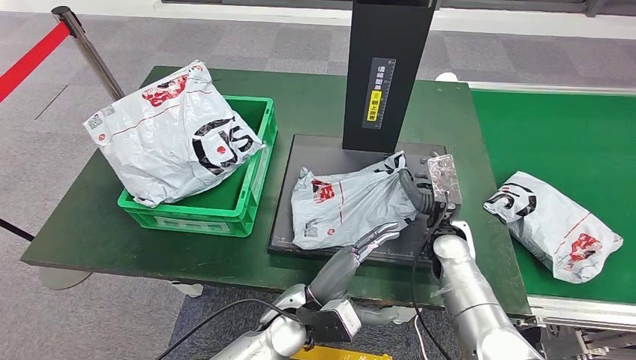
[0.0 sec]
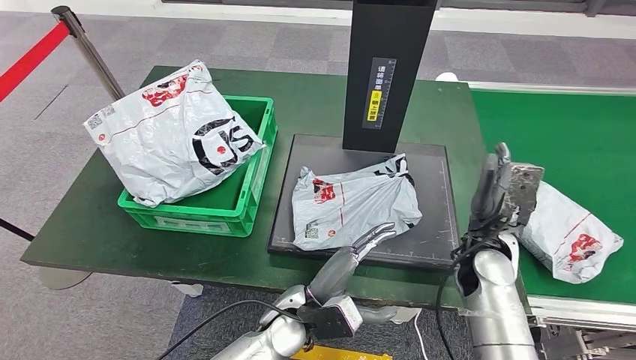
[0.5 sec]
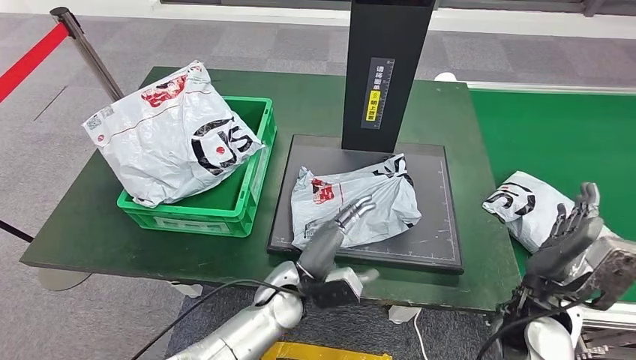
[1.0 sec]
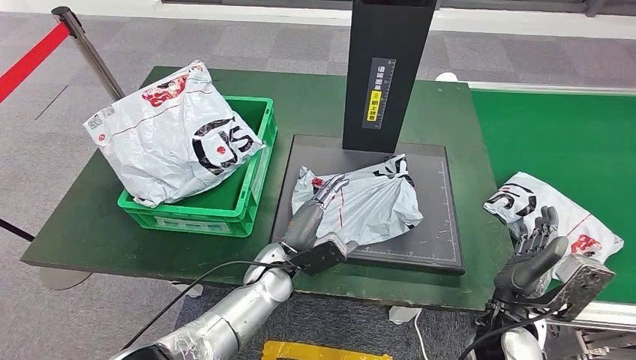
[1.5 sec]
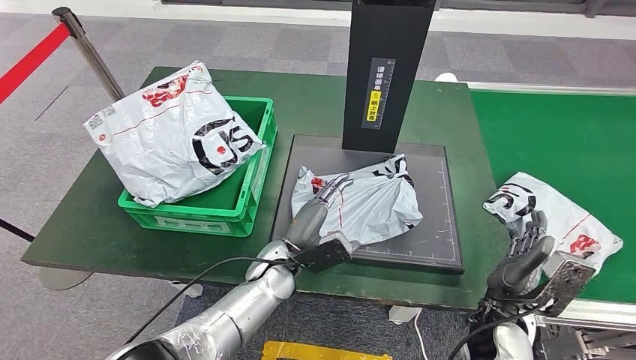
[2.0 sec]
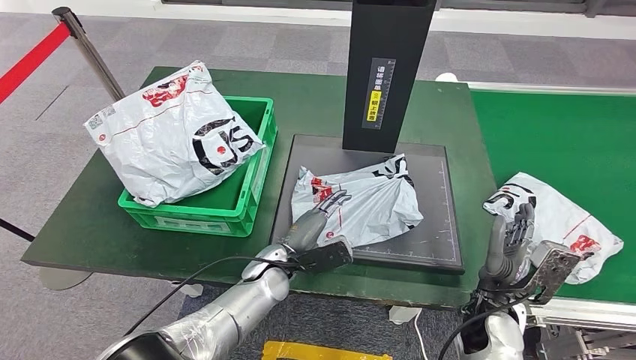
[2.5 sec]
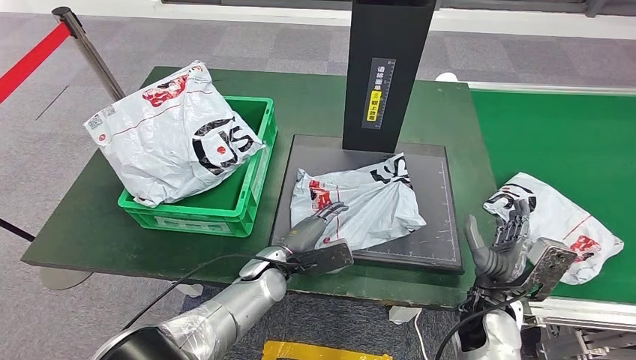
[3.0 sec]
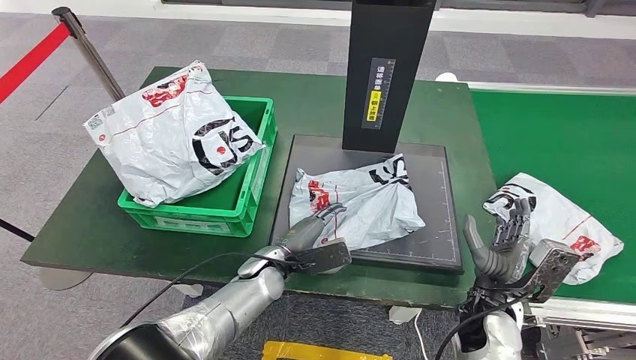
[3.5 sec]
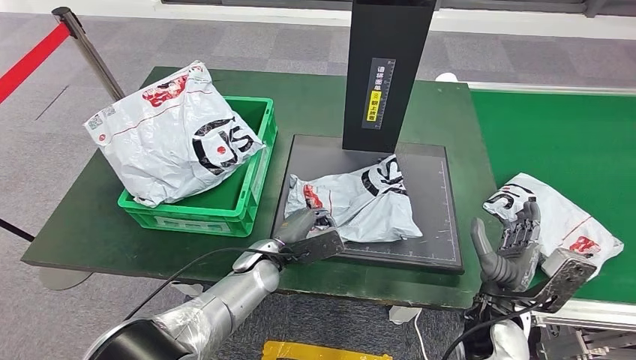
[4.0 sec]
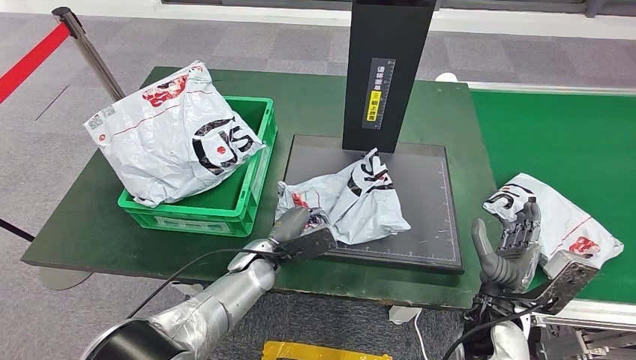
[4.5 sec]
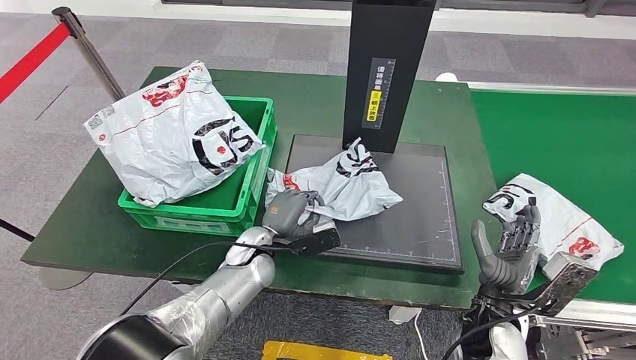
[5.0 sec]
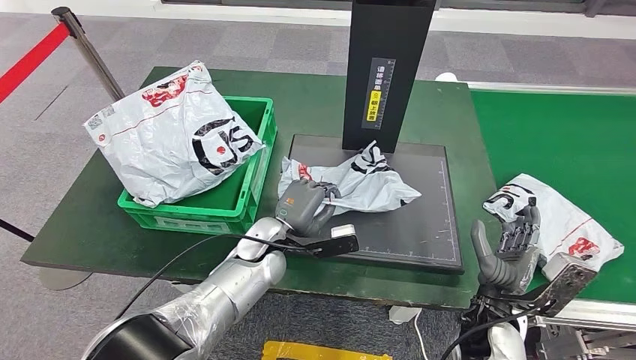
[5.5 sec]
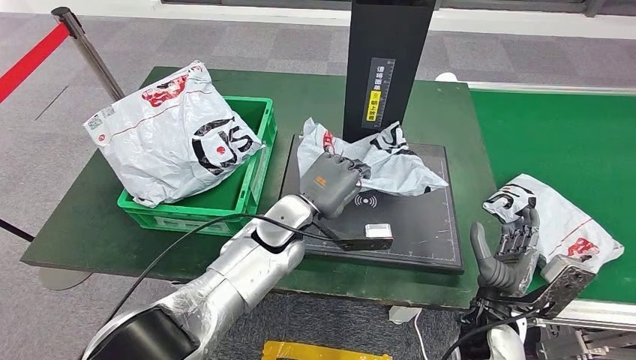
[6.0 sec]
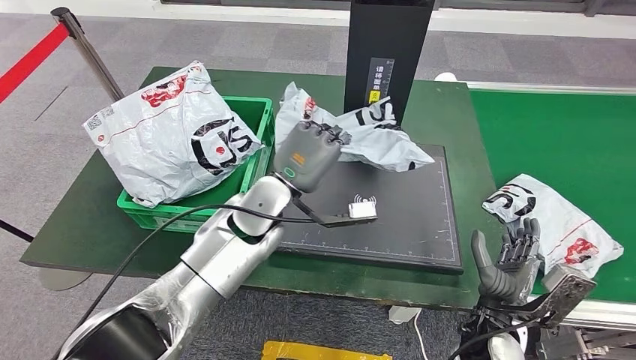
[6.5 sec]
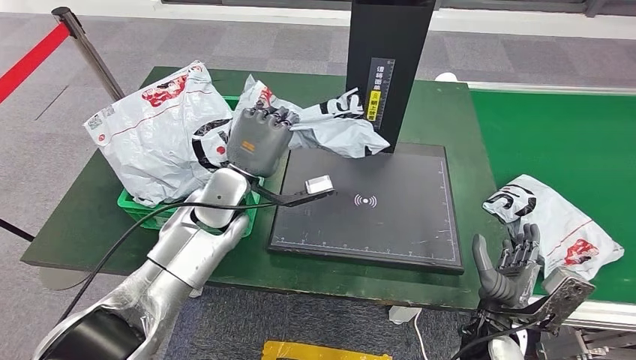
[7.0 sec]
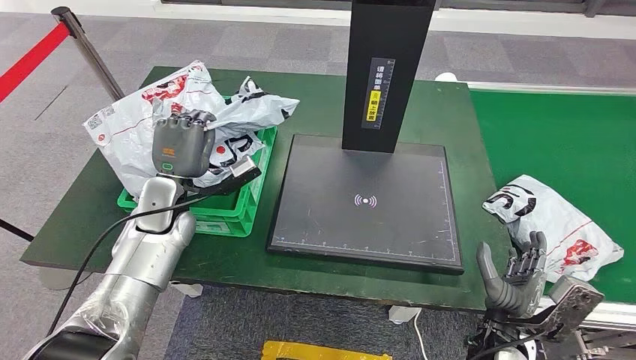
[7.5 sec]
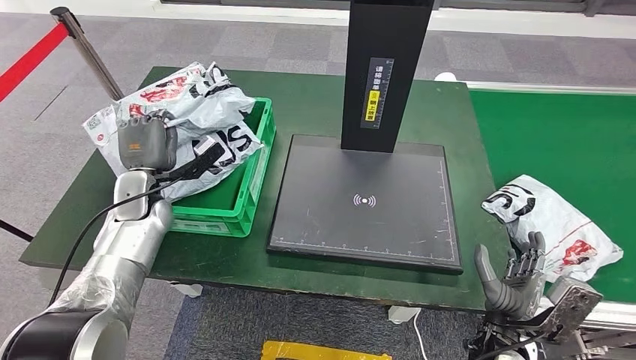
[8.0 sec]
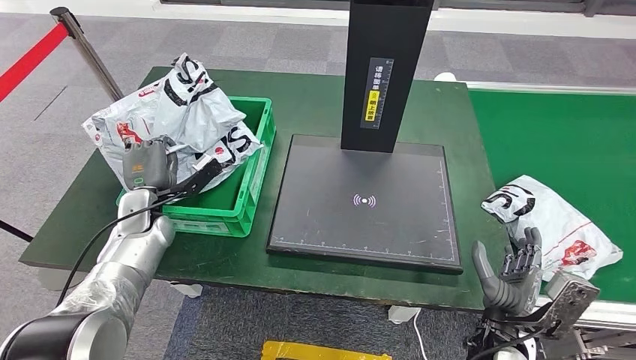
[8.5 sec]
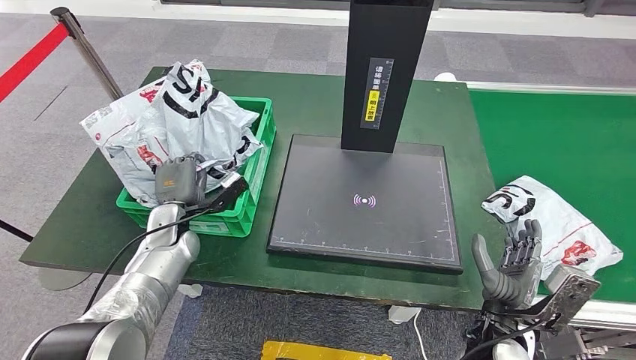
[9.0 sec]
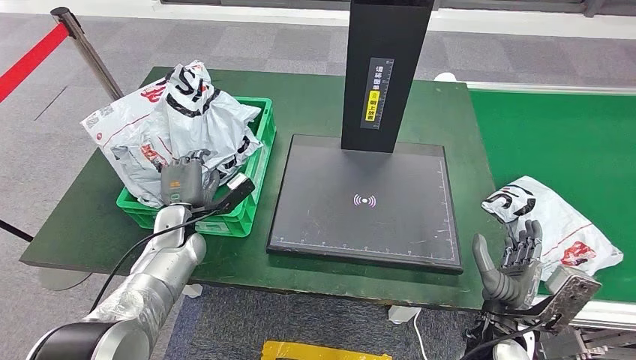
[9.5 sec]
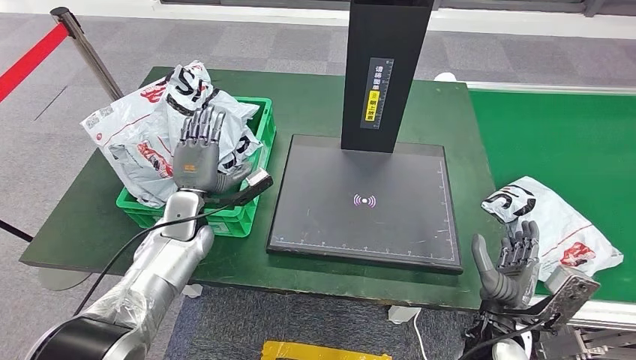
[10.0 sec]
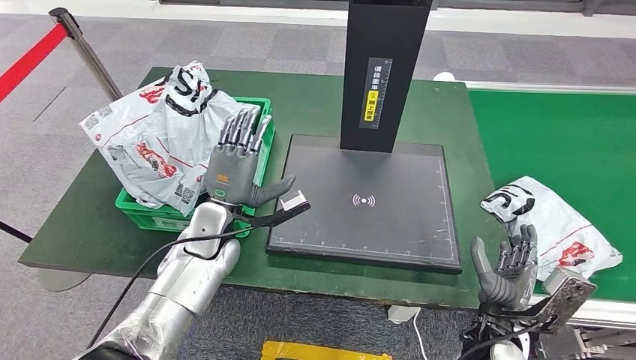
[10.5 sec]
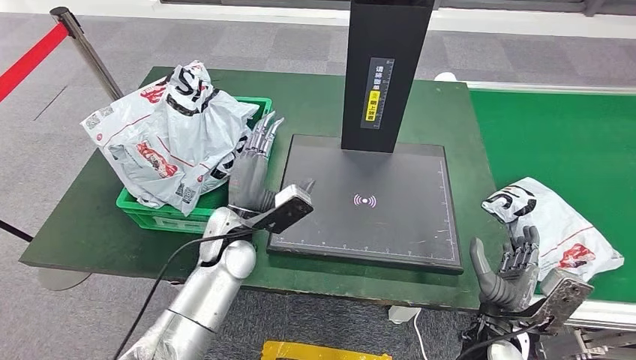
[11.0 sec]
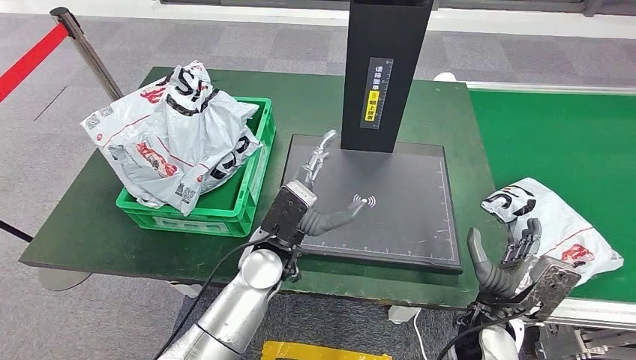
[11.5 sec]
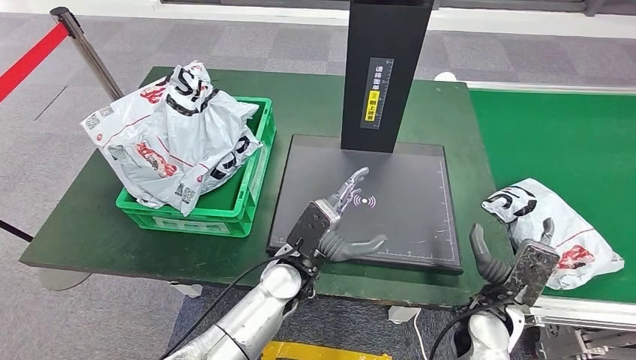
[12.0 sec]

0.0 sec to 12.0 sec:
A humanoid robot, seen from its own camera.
Step, 0.5 sec to 6.5 sec: Pick up the parcel from the inbound machine.
Step, 7.0 sec to 11.5 sec: Place the parcel into the delivery box.
0.0 sec to 2.0 sec: The right hand goes roughly 15 cm backward and to the right. Meanwhile the left hand shifts about 10 cm forward.
4.0 sec to 6.0 sec: The left hand shifts about 10 cm upward and to the right.
8.0 sec to 10.0 sec: The left hand heads to the right, covering some 10 cm.
10.0 sec to 12.0 sec: The left hand shifts about 25 cm to the right and backward.

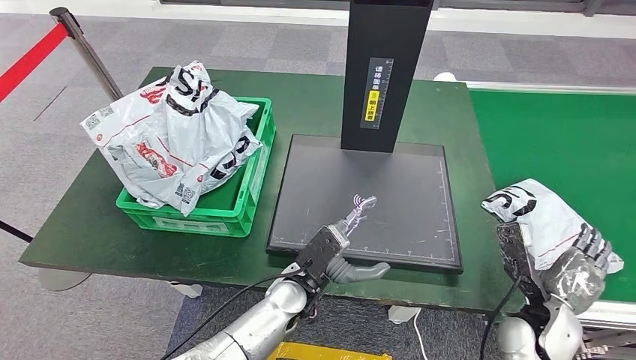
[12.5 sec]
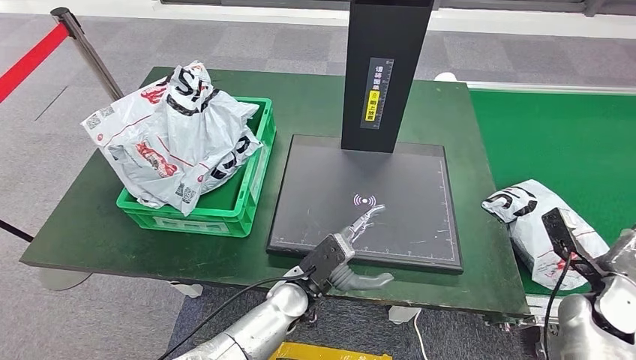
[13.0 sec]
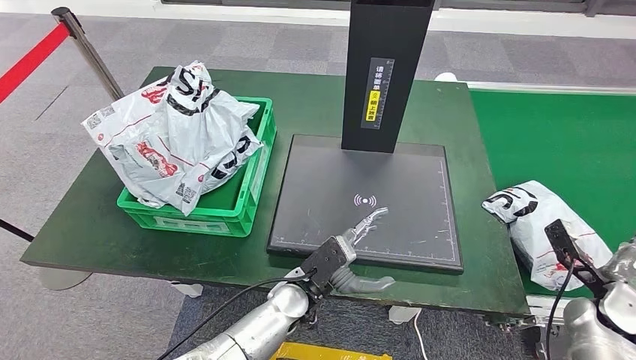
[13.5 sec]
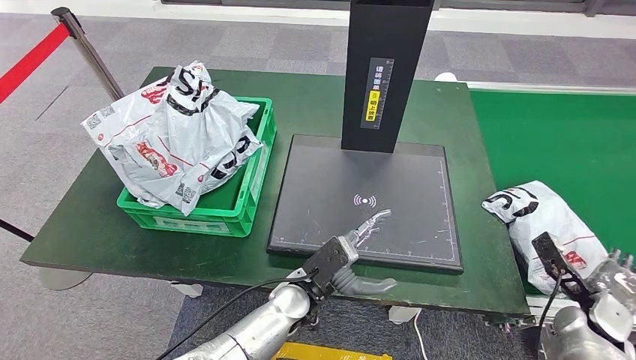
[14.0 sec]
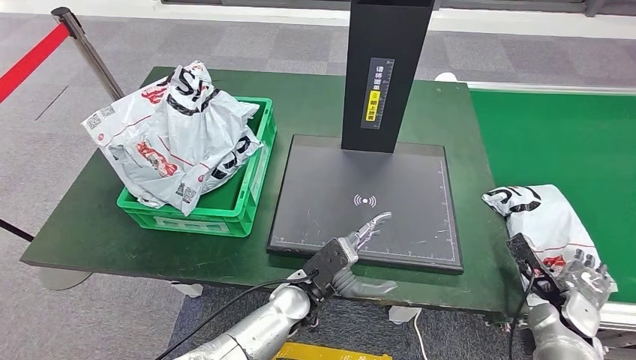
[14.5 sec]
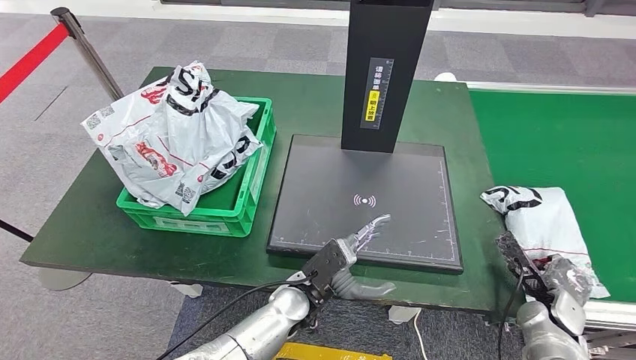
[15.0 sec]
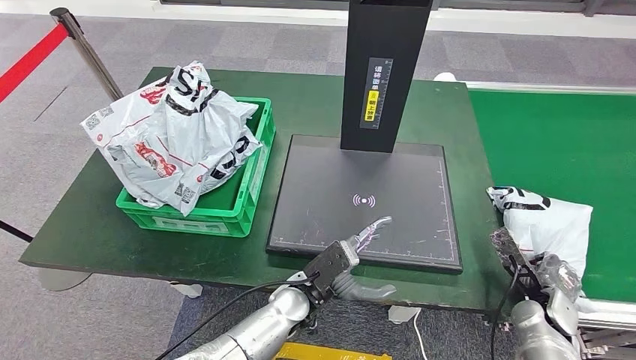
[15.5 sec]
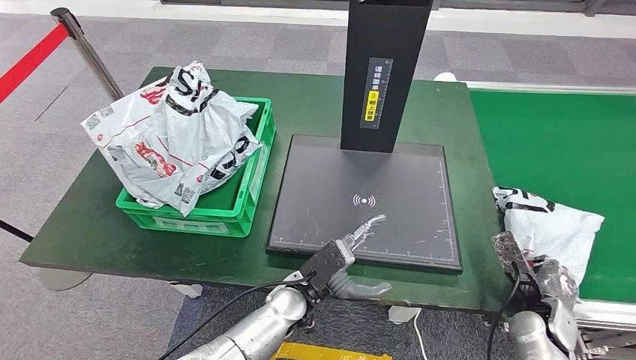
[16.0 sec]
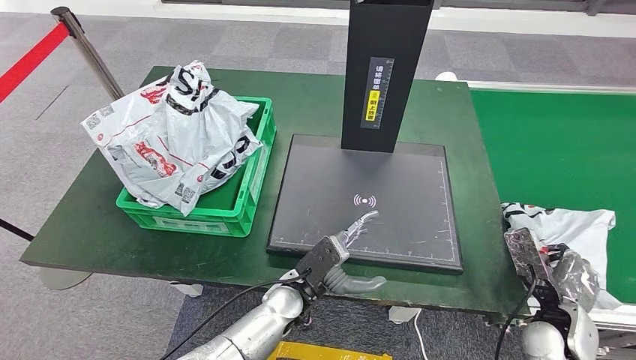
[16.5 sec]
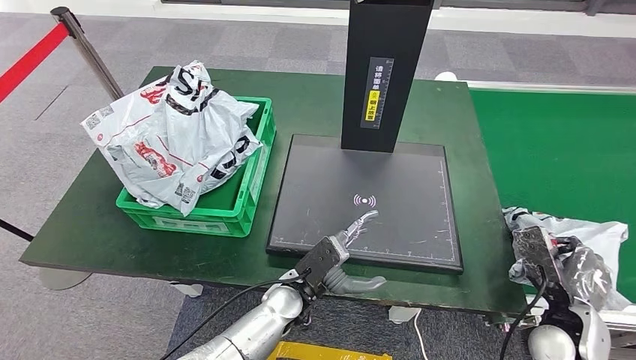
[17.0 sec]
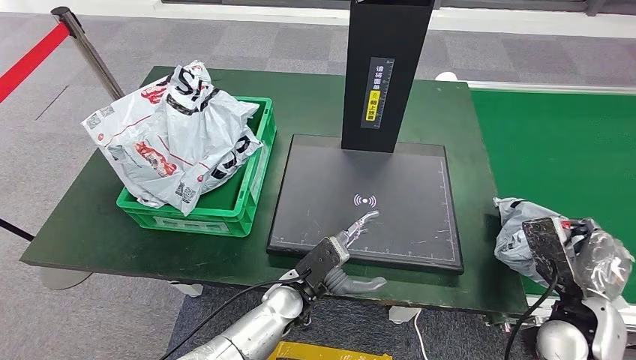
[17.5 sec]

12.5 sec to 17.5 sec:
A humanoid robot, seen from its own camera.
Step, 12.5 sec to 17.5 sec: Pick up the parcel from the conveyor belt.
12.5 sec to 15.0 sec: The right hand heads to the right and downward, covering some 10 cm.
15.0 sec to 17.5 sec: The right hand shifts approximately 10 cm upward.

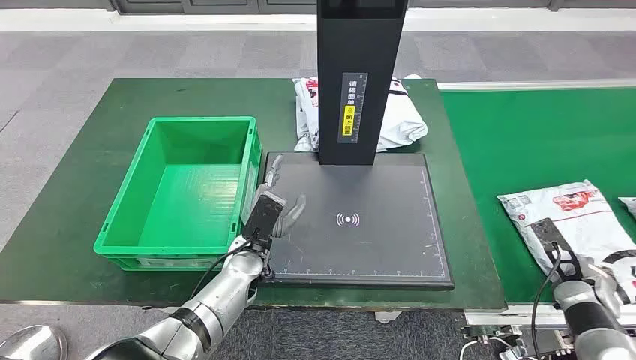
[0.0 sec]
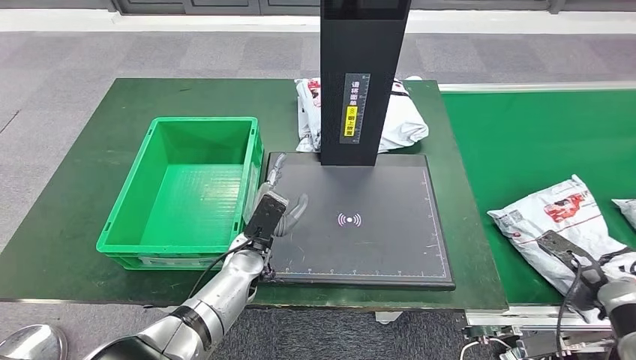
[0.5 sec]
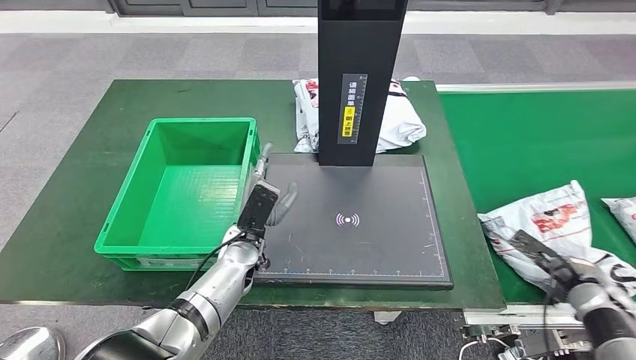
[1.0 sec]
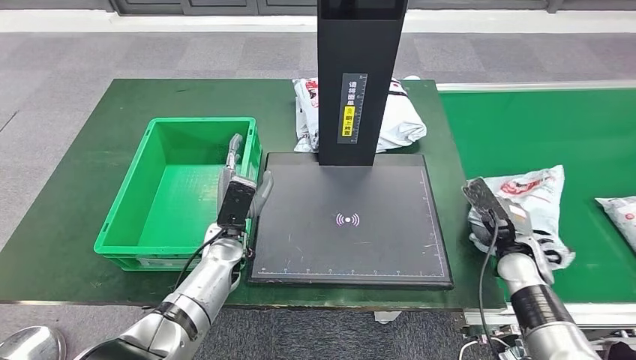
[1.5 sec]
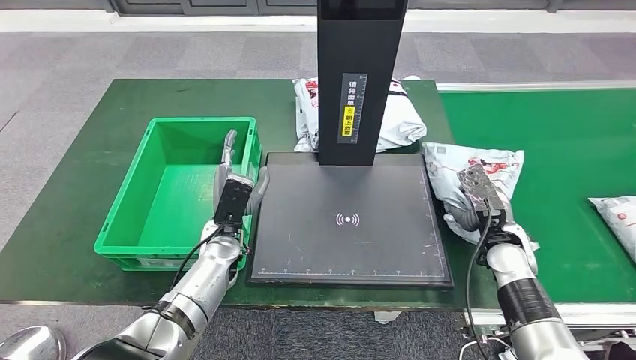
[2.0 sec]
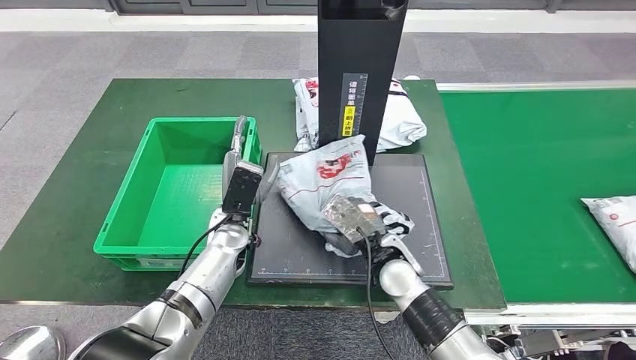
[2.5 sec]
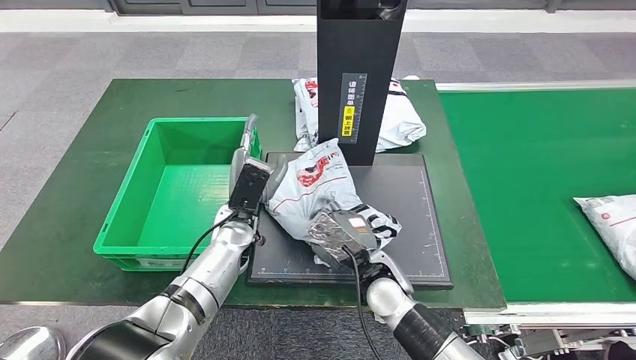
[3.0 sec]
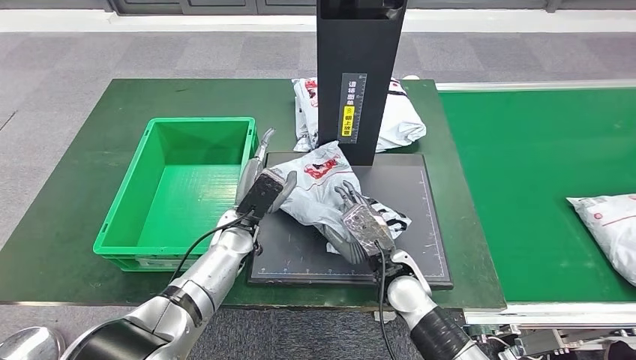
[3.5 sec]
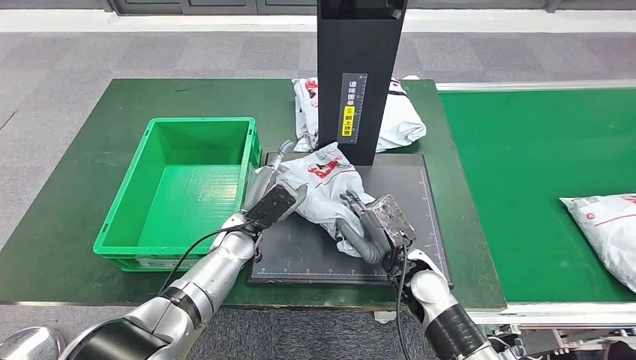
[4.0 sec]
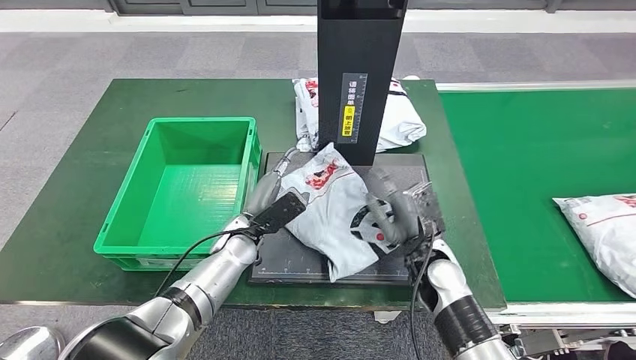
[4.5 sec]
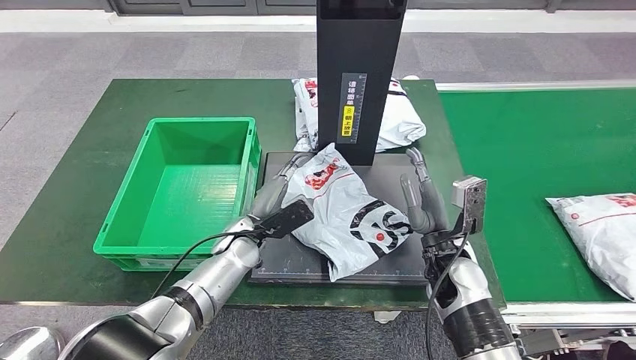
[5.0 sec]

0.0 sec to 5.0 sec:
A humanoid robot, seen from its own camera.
Step, 0.0 sec to 1.5 sec: Take the parcel off the conveyor belt.
2.5 sec to 5.0 sec: The right hand goes approximately 10 cm to the right.
